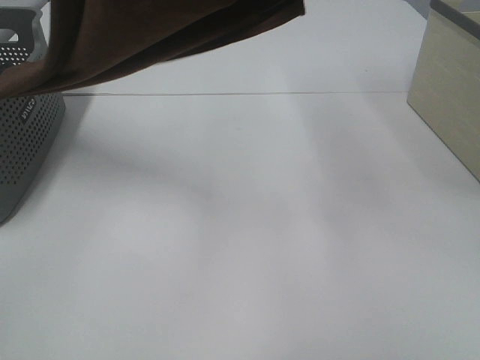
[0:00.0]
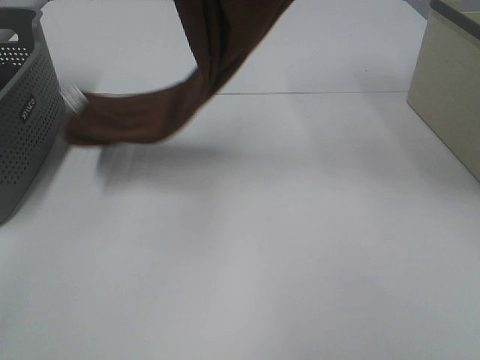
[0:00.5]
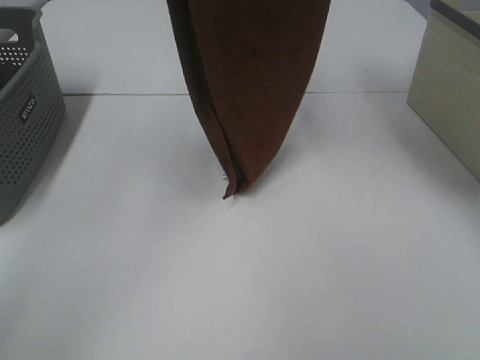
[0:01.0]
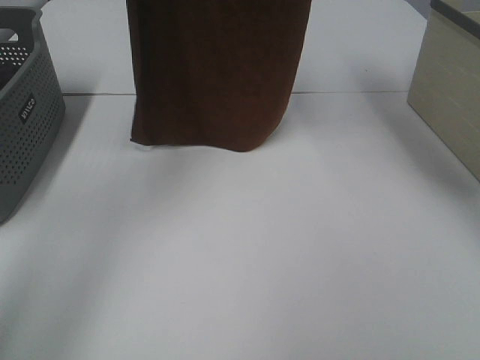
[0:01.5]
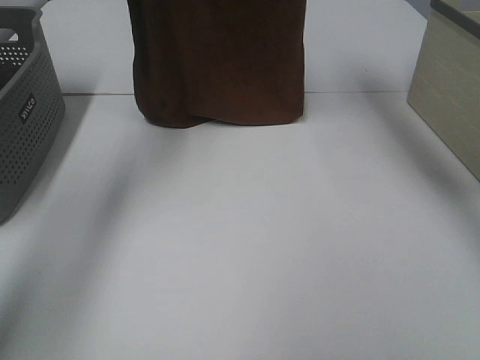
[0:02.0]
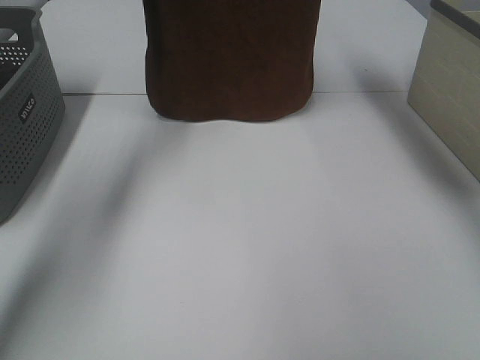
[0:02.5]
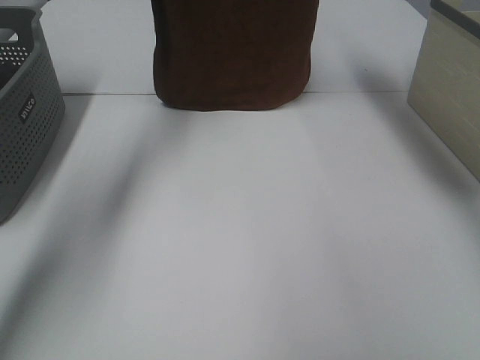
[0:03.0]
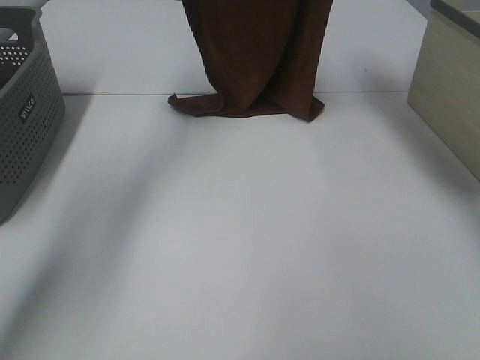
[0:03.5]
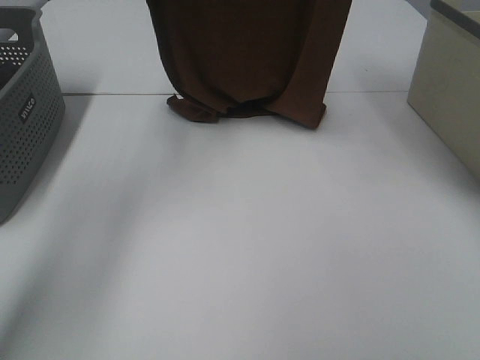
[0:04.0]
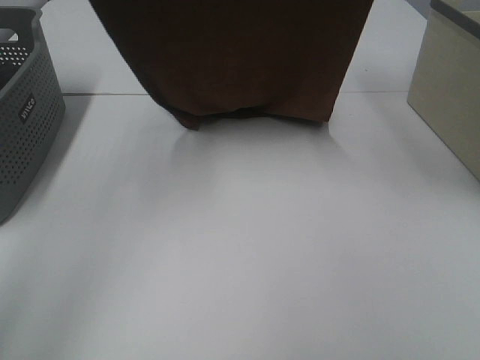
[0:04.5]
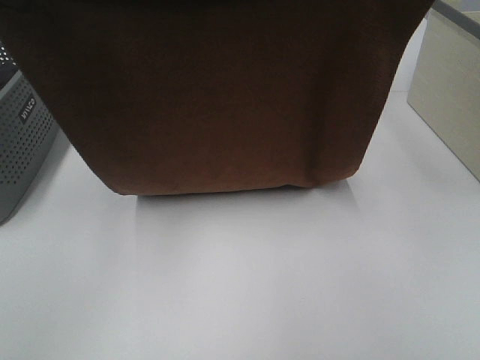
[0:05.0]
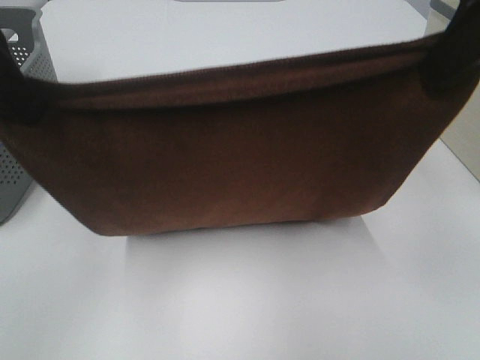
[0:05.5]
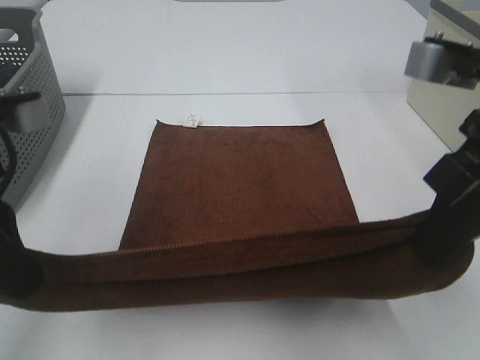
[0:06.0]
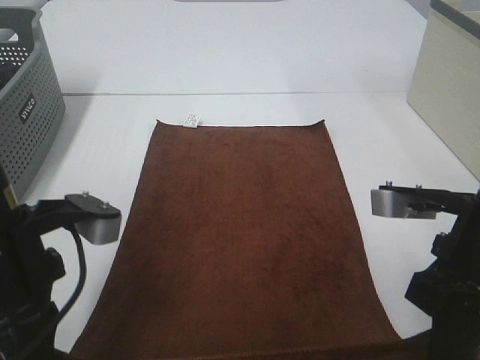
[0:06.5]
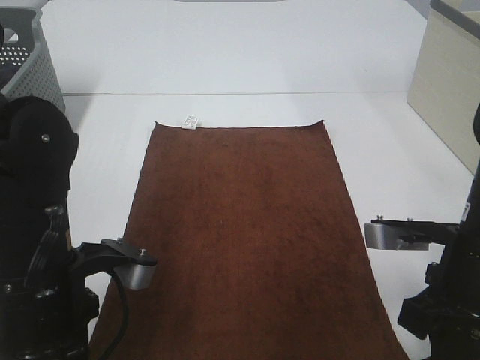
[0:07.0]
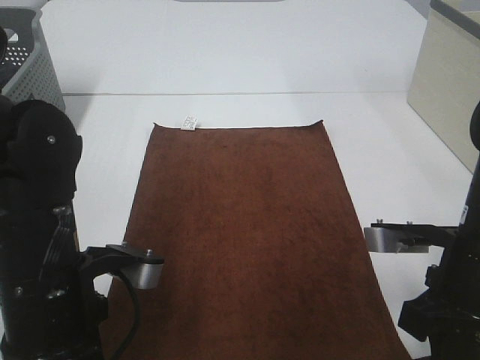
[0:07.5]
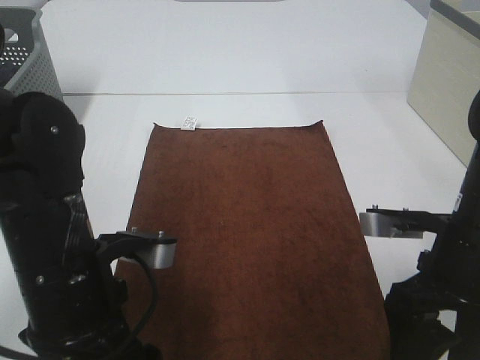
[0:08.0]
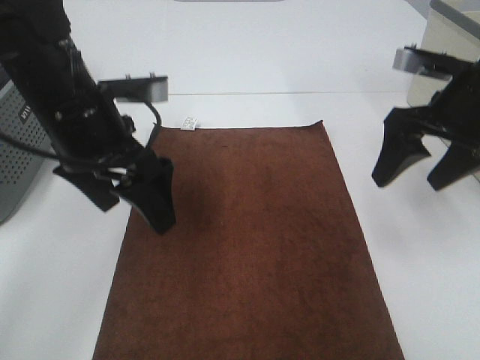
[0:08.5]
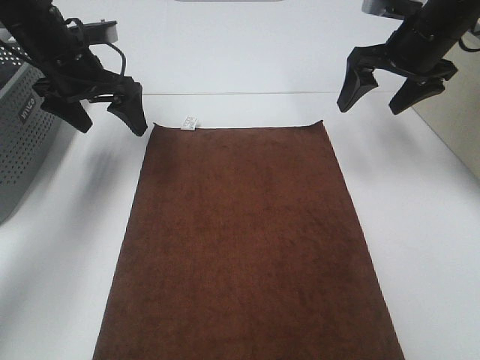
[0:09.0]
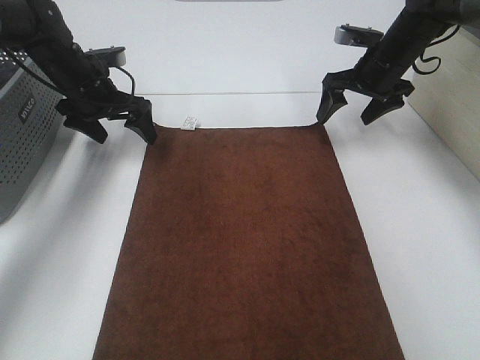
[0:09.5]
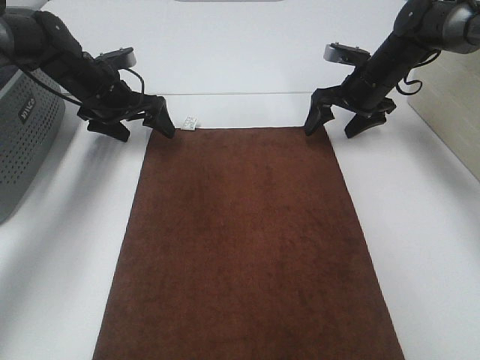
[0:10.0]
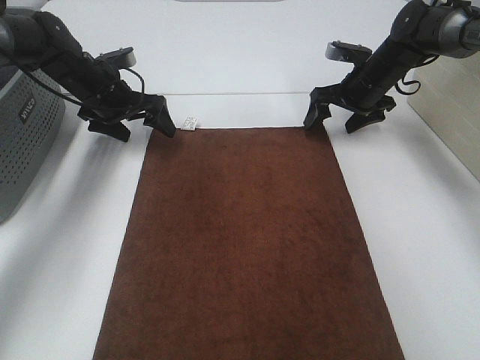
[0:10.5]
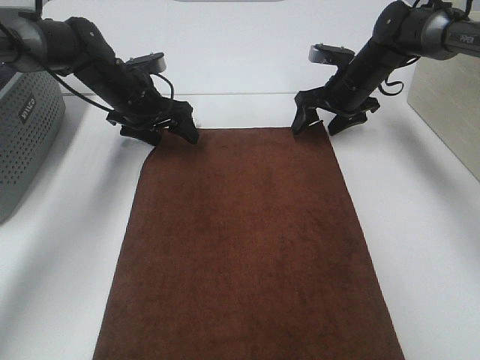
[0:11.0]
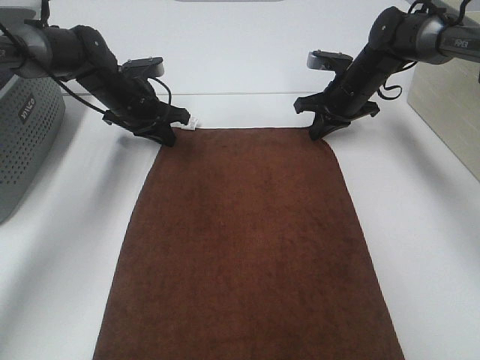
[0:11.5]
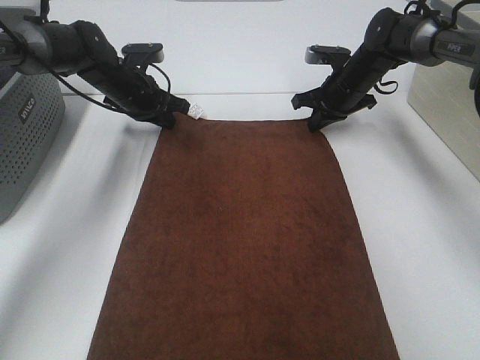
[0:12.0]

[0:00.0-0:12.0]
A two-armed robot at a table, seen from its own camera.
Task of the whole recording: Remove the towel and place it.
Step, 0:00.0 to 0:03.5: Left hand: spread the brown towel flat on the table.
Step, 0:00.0 to 0:03.5: Right hand: spread the brown towel flat on the table.
Step, 0:04.0 to 0:09.5: Left hand:adjust the brown towel.
Step, 0:04.0 to 0:09.5: Right hand:adjust the brown towel.
0:00.0 to 0:02.0: The left gripper heads forward, covering approximately 20 cm, while the right gripper shifts roughly 15 cm forward and upward.
0:02.0 to 0:04.0: The right gripper changes place by approximately 5 cm. Meanwhile the left gripper travels forward and back again, roughly 5 cm each way.
0:04.0 to 0:06.0: Both grippers travel together backward and downward, about 30 cm.
0:06.0 to 0:08.0: The right gripper is displaced downward by roughly 15 cm, and opens; the left gripper heads downward and to the right, covering about 15 cm, and opens.
0:08.0 to 0:10.0: Both grippers travel together forward, about 35 cm.
0:10.0 to 0:12.0: The left gripper closes. The right gripper closes.

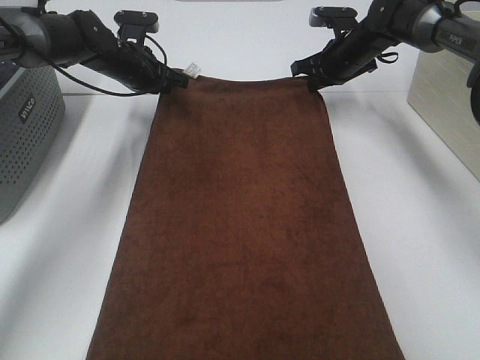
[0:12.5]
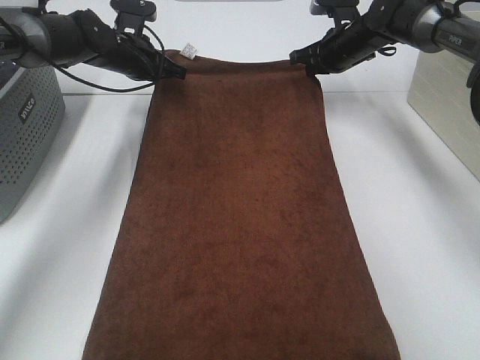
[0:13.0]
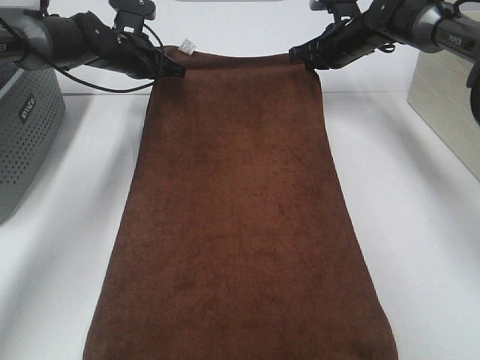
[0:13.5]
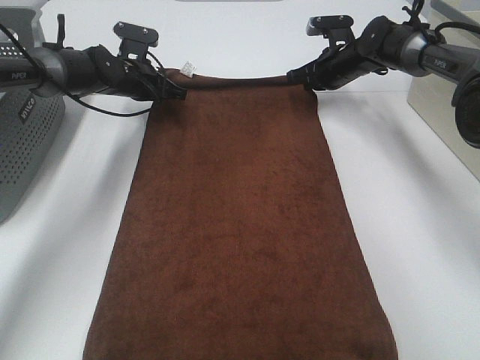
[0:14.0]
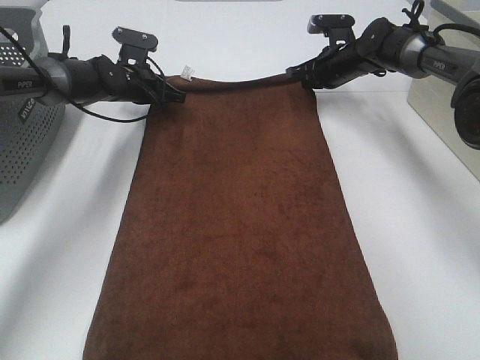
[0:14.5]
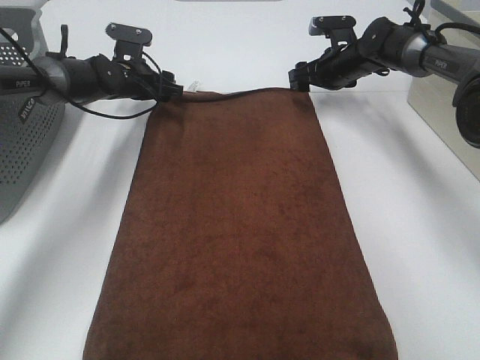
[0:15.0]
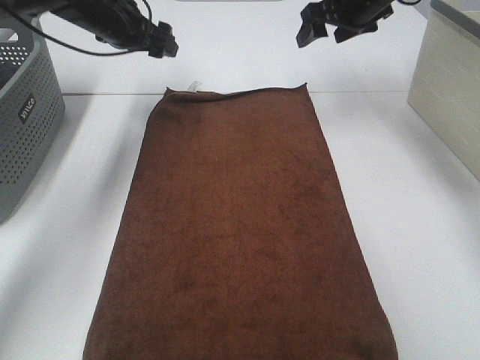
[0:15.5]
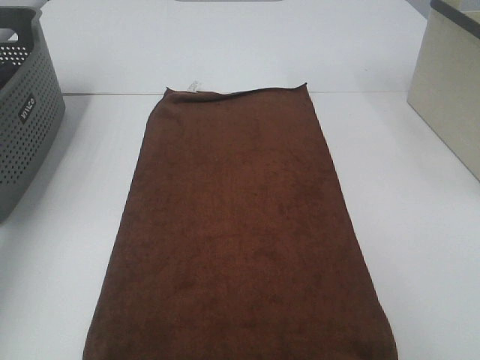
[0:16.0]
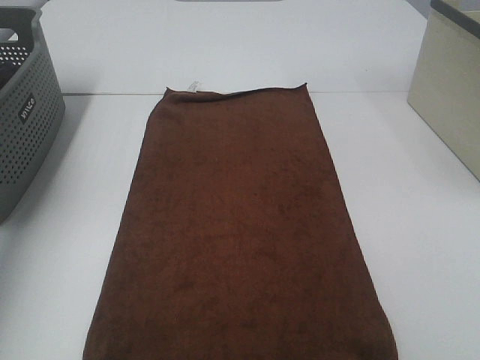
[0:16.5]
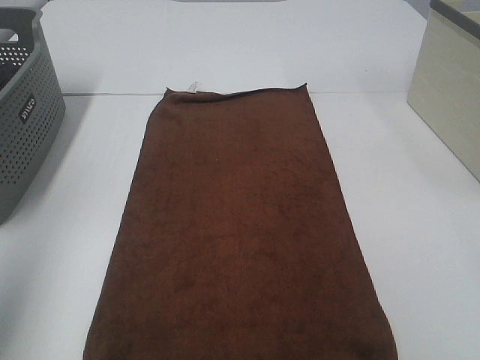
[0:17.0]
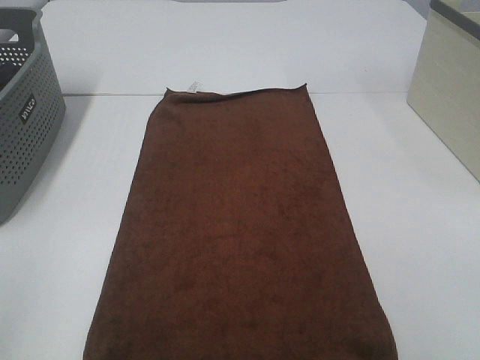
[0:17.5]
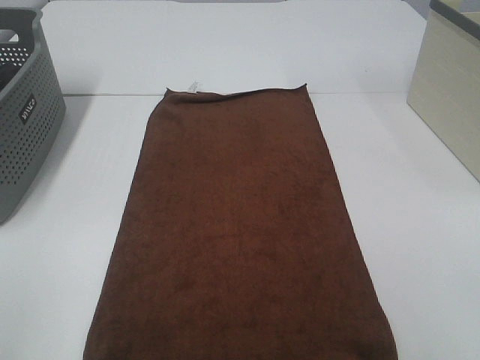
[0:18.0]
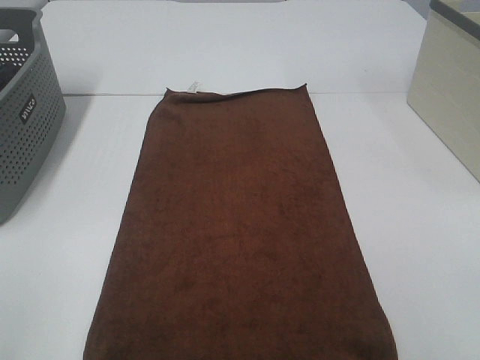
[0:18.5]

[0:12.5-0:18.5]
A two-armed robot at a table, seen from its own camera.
Task of the whole recording: Remove the towel and place it.
0:12.5 to 0:14.5: The left gripper ends up approximately 5 cm from where it was.
0:14.5 to 0:16.5: The left gripper heads upward, backward and to the left, covering approximately 40 cm, and opens up. The right gripper goes some 40 cm upward and backward, and opens.
0:16.5 to 0:18.5: The left gripper is displaced backward by roughly 35 cm.

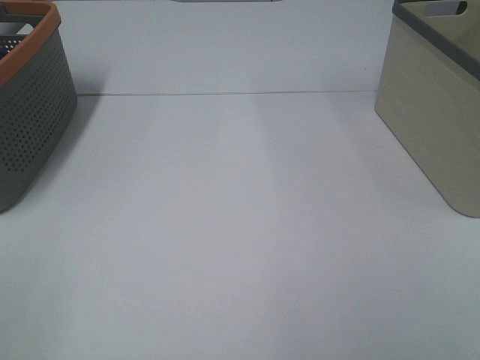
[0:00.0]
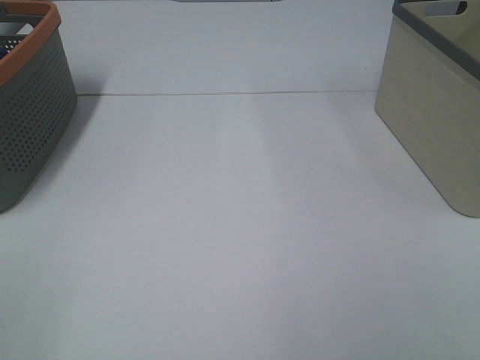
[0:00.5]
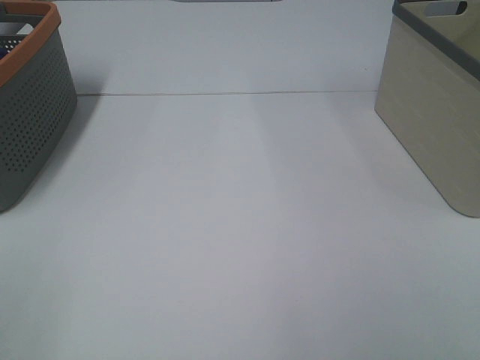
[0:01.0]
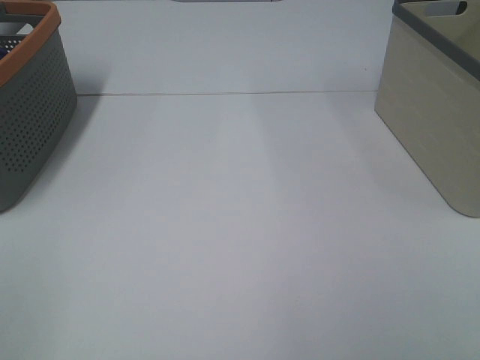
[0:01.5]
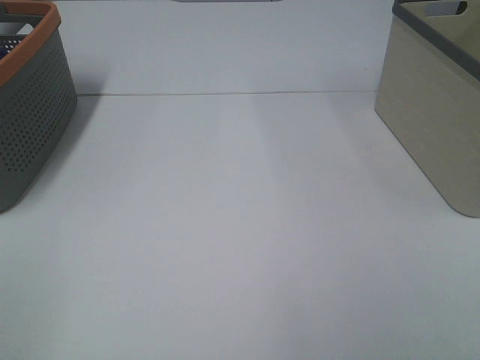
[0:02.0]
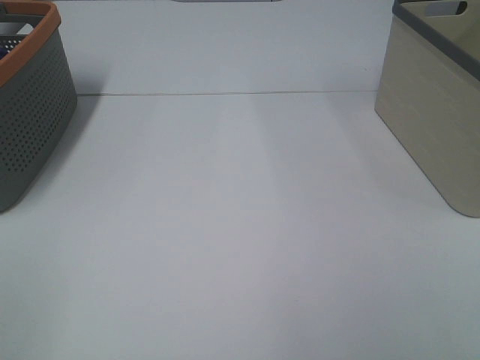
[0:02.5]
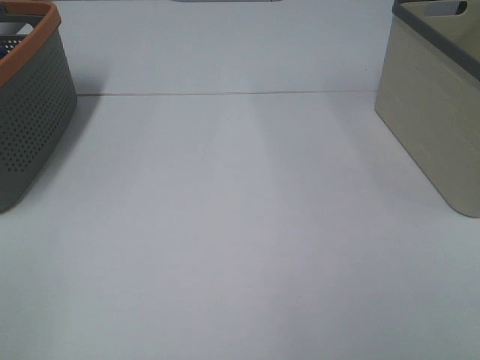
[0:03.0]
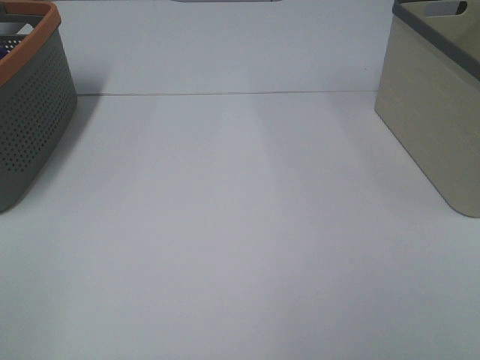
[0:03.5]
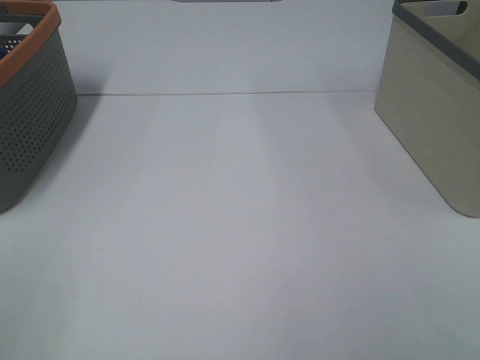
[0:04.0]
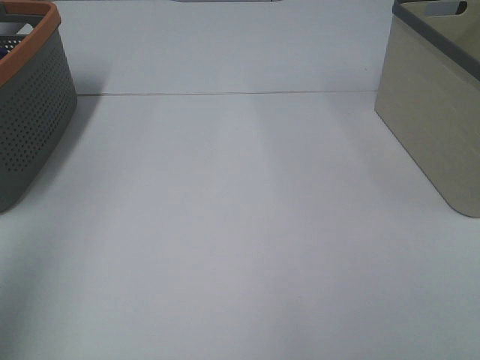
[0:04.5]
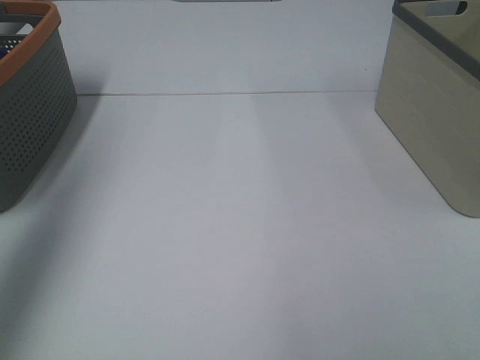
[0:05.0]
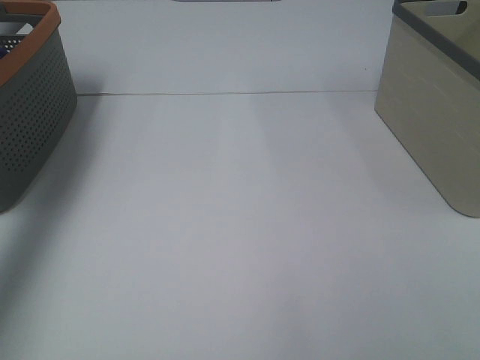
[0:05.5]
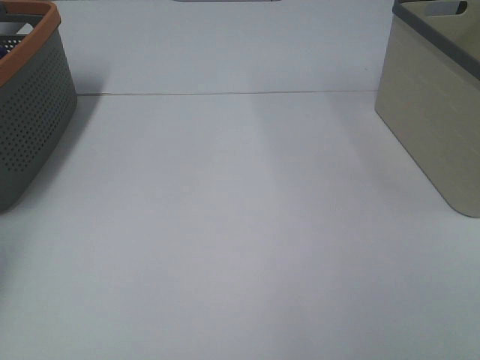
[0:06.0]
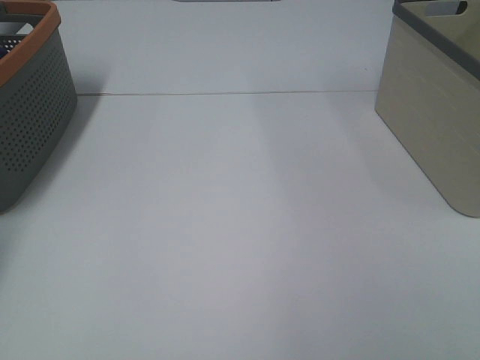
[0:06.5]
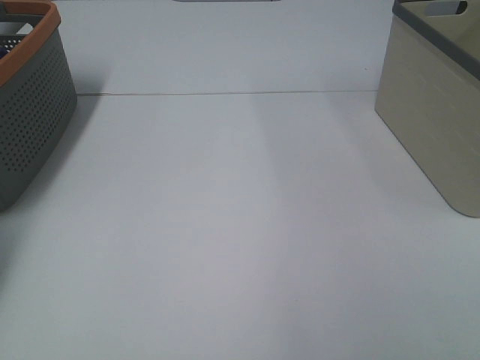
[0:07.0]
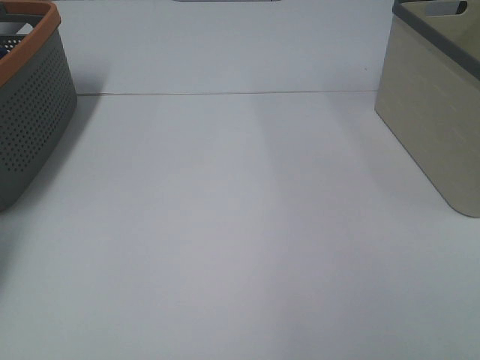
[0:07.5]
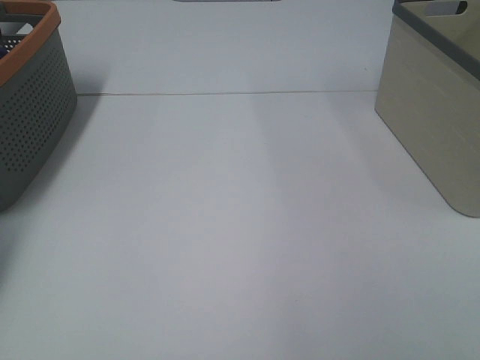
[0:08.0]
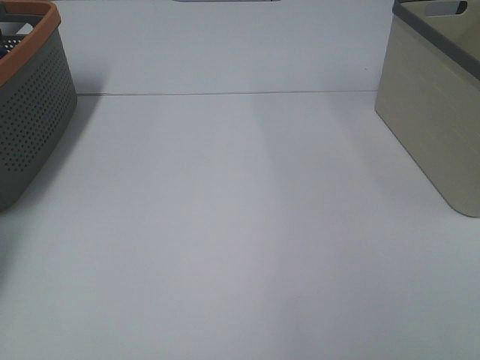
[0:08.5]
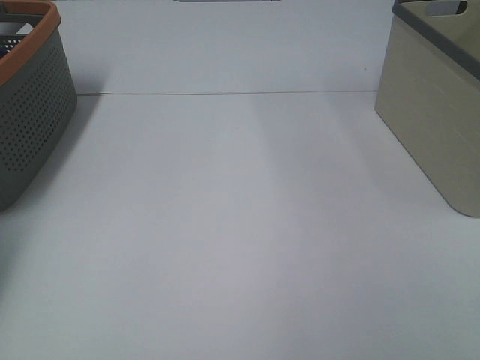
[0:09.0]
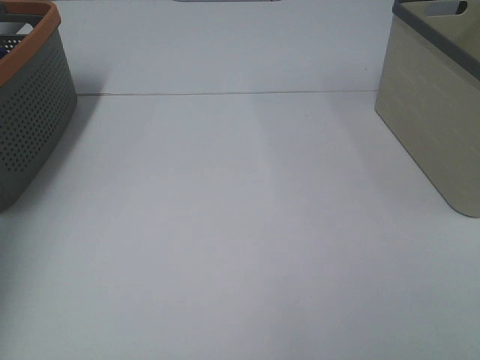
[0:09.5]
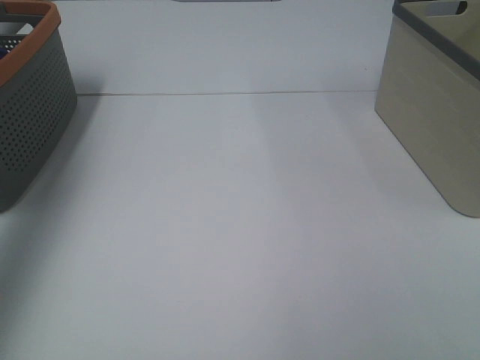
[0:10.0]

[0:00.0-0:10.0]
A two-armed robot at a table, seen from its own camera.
Task of the whole recording: Remove the towel and place it.
0:00.0 to 0:02.0: Both grippers stay about where they are.
0:04.0 to 0:06.0: The left gripper goes approximately 40 cm forward.
0:08.0 to 0:10.0: The left gripper goes roughly 40 cm upward and backward.
